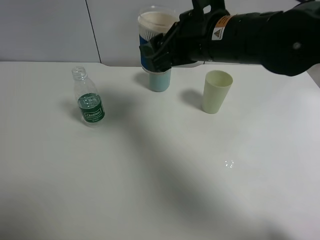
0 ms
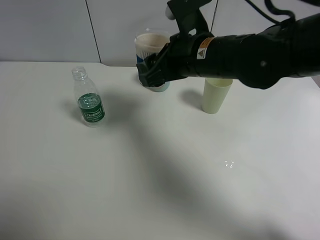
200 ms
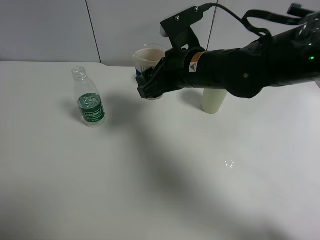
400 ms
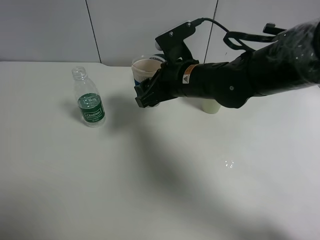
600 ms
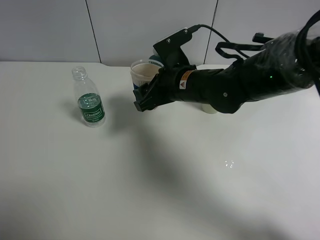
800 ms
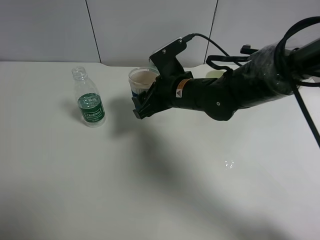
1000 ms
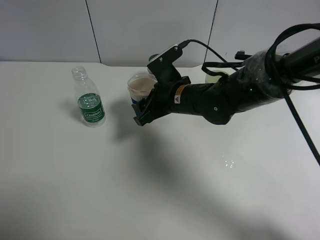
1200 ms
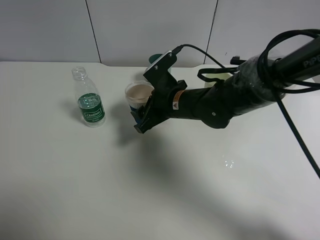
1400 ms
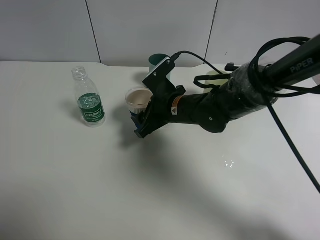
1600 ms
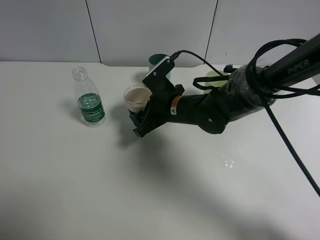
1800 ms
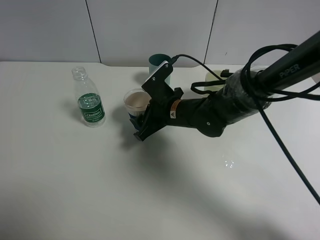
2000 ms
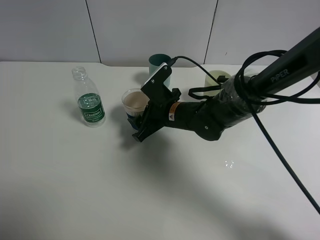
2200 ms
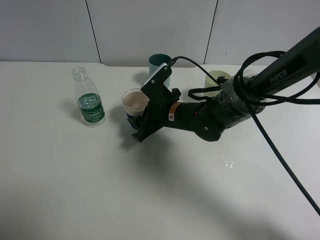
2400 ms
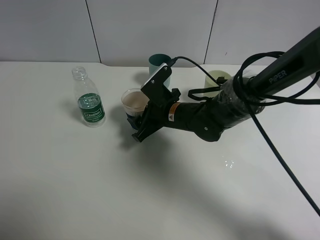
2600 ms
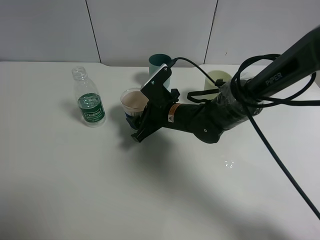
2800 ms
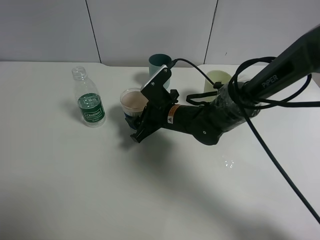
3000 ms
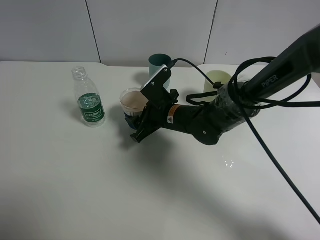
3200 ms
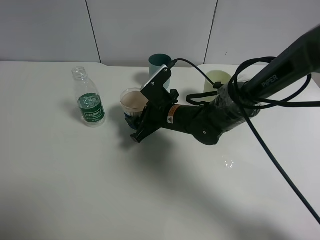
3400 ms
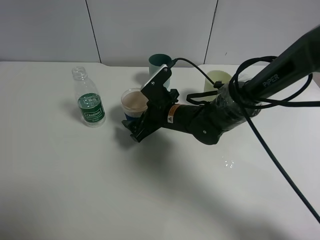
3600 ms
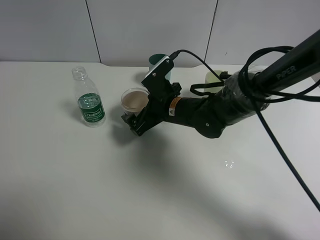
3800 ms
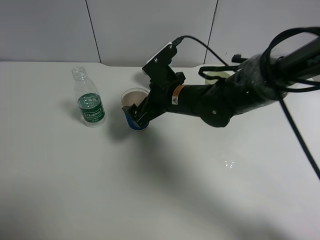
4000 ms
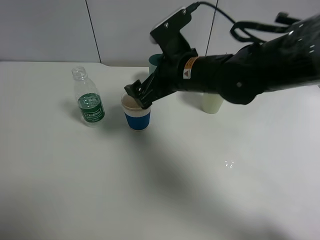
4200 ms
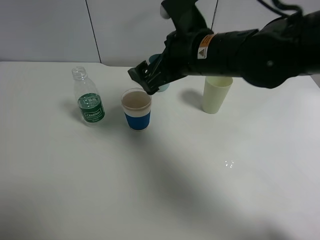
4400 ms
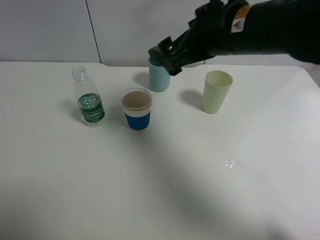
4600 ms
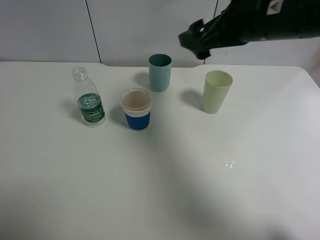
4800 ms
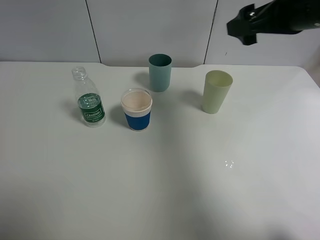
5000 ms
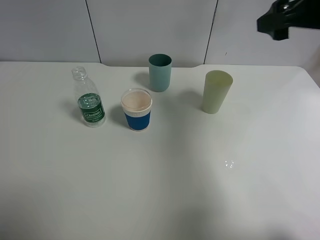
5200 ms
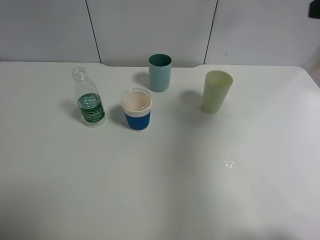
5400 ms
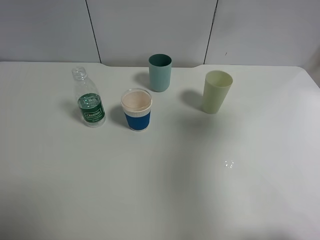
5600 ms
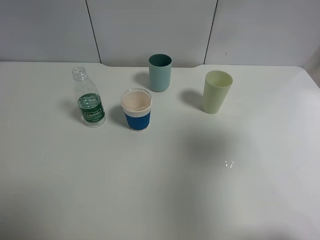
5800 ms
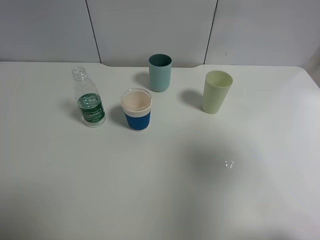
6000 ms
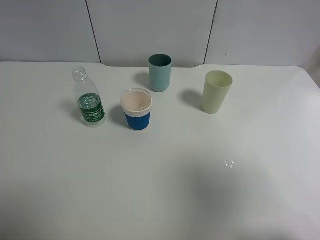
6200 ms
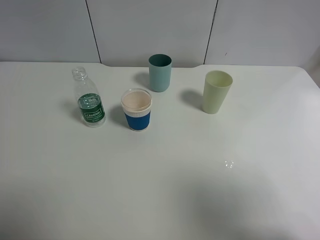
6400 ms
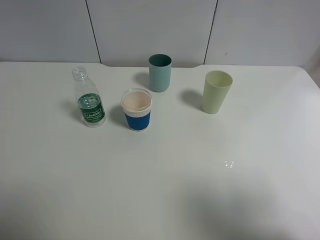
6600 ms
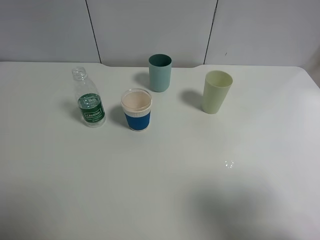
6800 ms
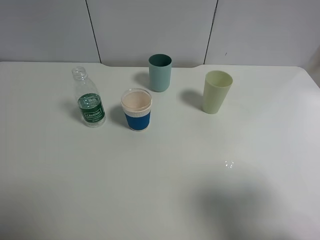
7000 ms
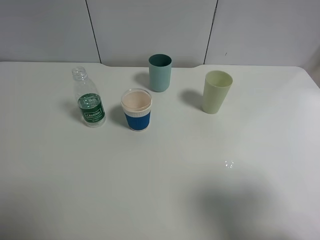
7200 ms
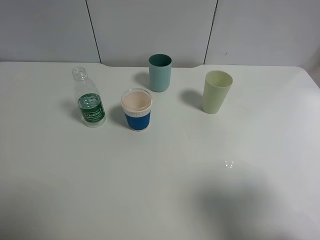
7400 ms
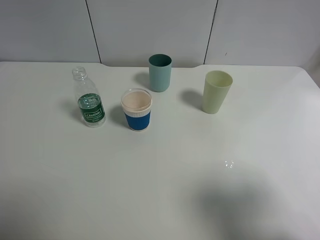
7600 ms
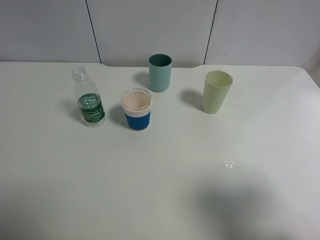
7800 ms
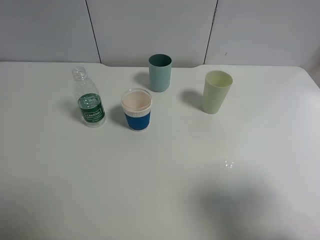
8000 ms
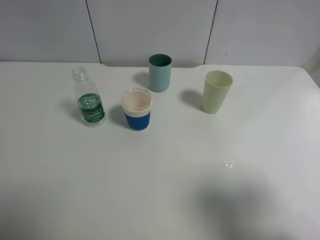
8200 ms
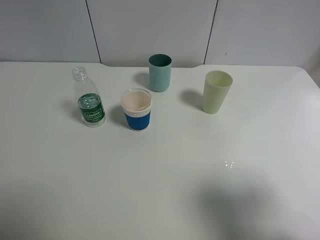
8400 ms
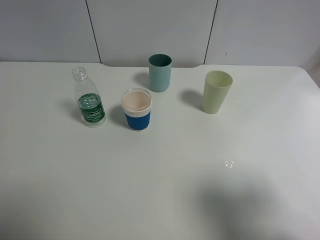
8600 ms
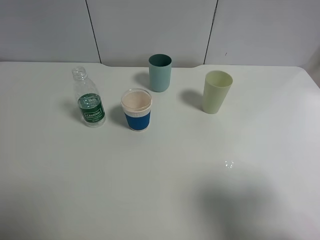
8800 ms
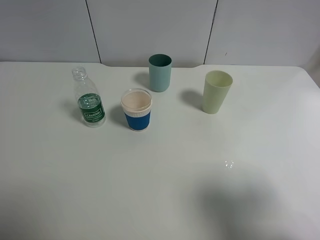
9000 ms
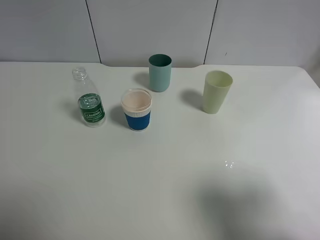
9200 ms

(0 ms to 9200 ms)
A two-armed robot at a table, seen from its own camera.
Task of the whole recording: use a clamp to hold the bottle of the drink, pour the beverage into a random cup, then clamp the cup containing the drink and pour the drink into another random cup.
Step, 0 ms - 3200 ms: Place the paper cup on the table with right gripper.
0 ms - 1600 ms: The right gripper travels downward by about 15 cm.
1600 ms - 3000 ms: The grippers move only a little.
3000 ms - 4600 ms: The right gripper shifts about 20 cm upward, and opens up.
4600 ms - 6200 ms: The right gripper heads backward, to the right and upward, covering some 35 cm.
6200 ms - 7600 ms: The right gripper is displaced downward by roughly 10 cm.
7600 ms - 9200 ms: Neither gripper changes place.

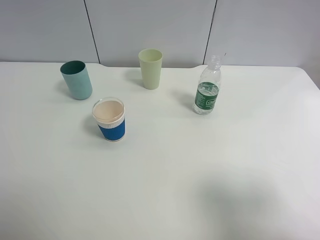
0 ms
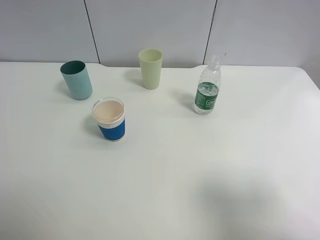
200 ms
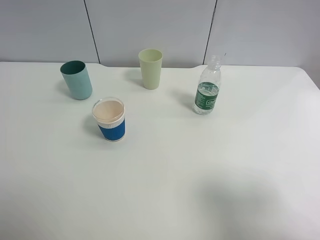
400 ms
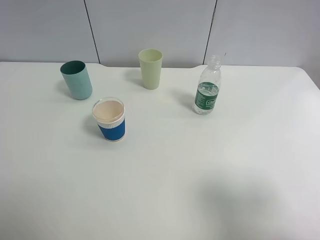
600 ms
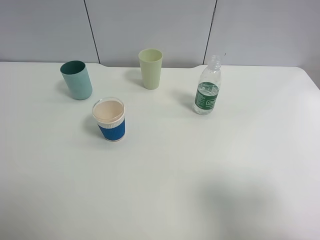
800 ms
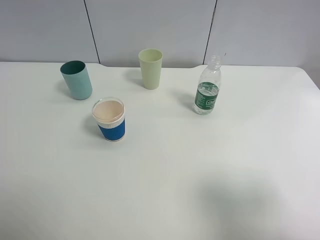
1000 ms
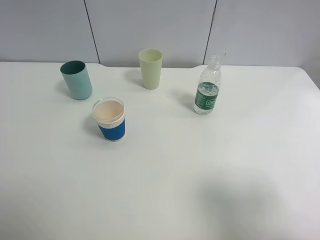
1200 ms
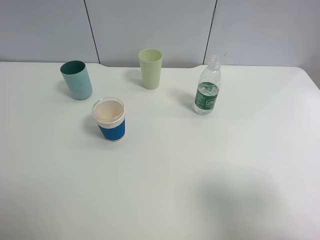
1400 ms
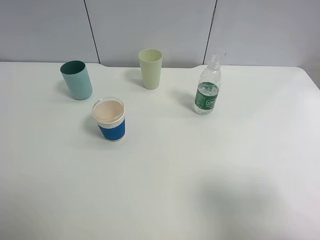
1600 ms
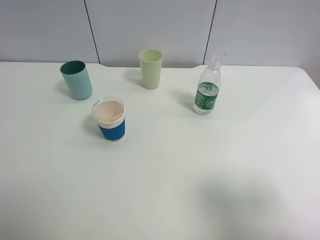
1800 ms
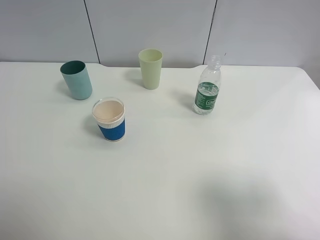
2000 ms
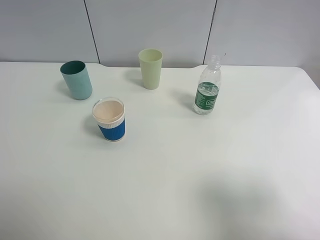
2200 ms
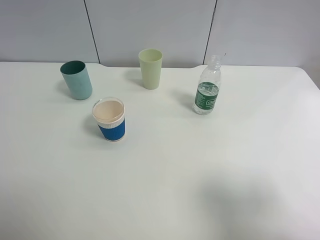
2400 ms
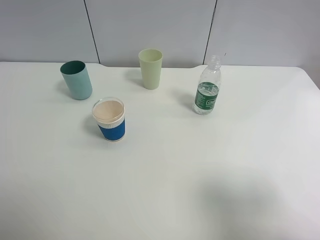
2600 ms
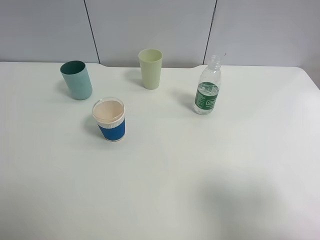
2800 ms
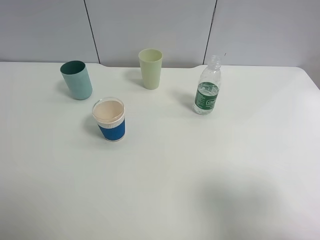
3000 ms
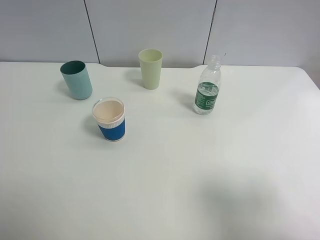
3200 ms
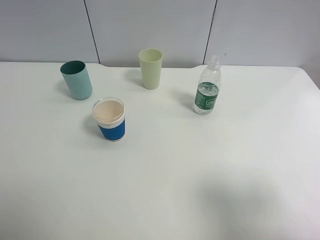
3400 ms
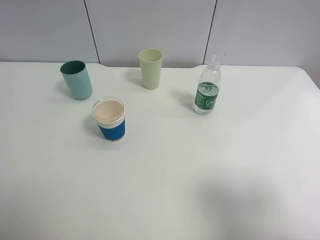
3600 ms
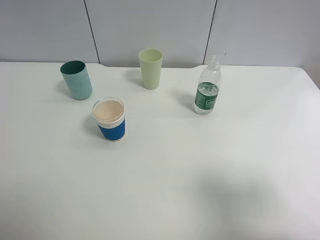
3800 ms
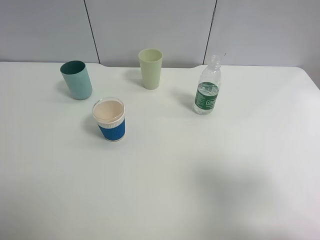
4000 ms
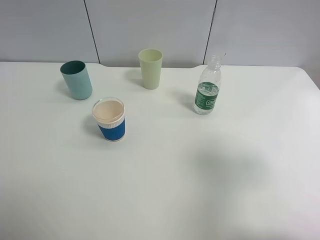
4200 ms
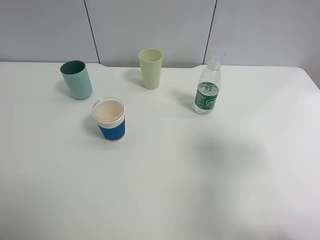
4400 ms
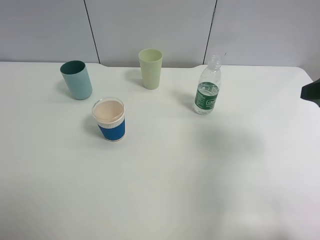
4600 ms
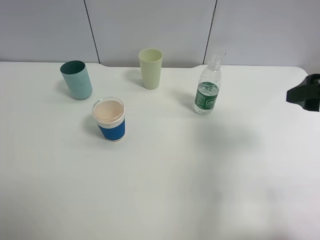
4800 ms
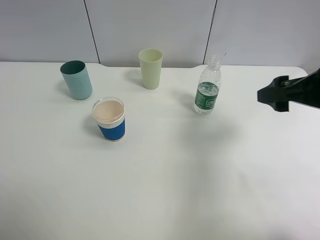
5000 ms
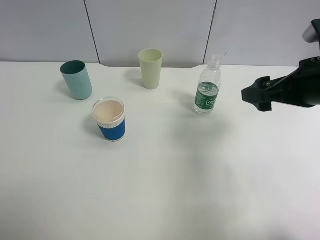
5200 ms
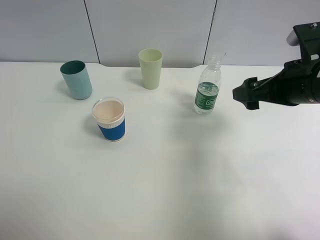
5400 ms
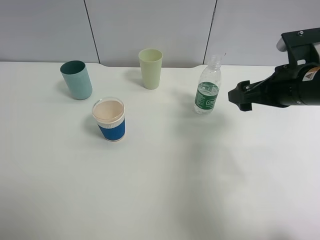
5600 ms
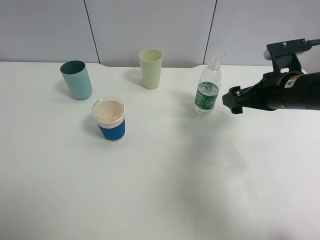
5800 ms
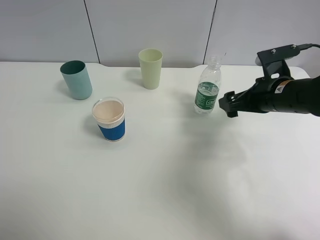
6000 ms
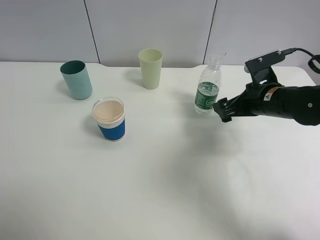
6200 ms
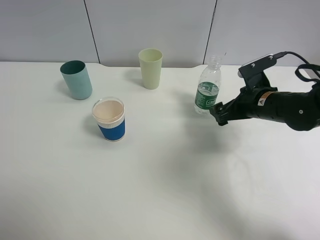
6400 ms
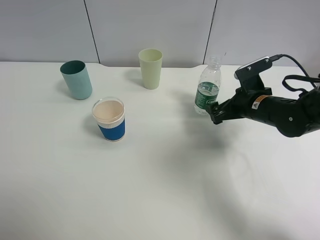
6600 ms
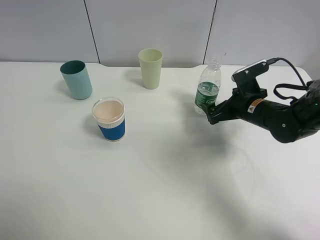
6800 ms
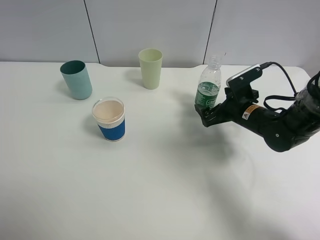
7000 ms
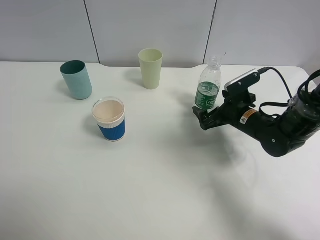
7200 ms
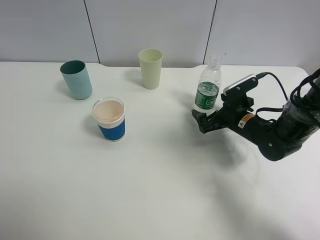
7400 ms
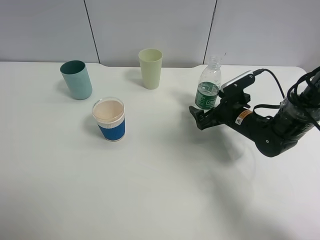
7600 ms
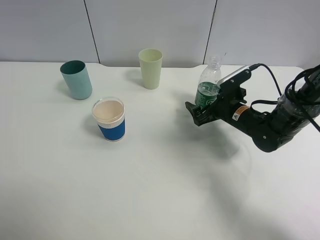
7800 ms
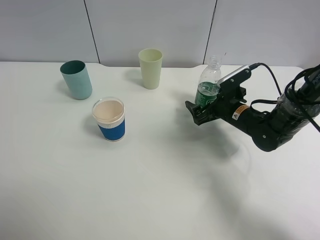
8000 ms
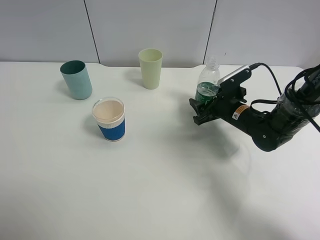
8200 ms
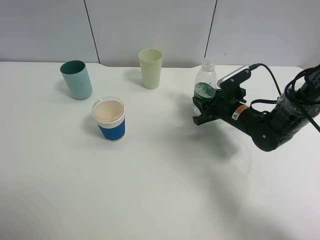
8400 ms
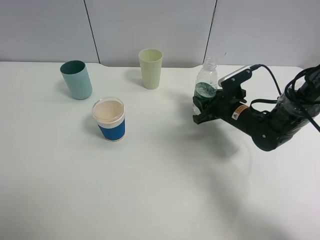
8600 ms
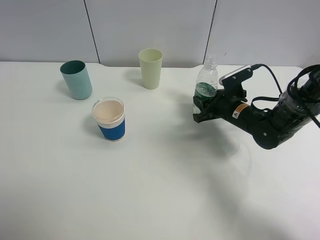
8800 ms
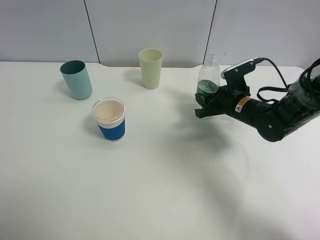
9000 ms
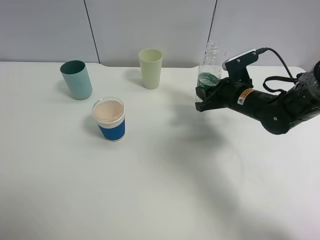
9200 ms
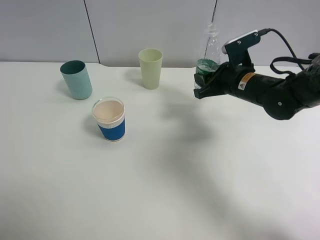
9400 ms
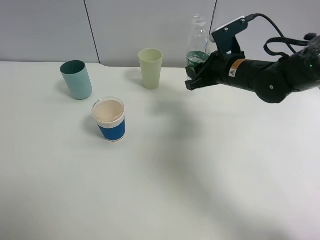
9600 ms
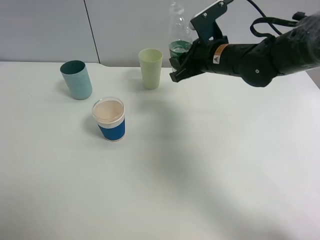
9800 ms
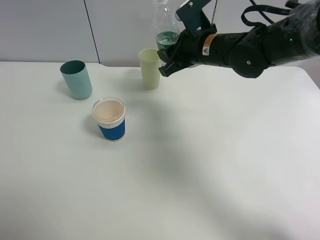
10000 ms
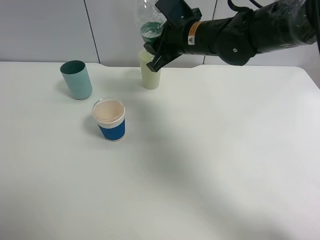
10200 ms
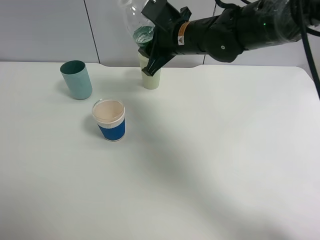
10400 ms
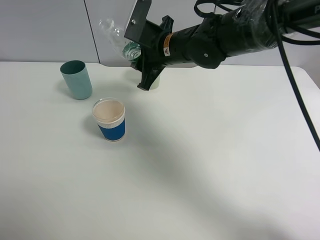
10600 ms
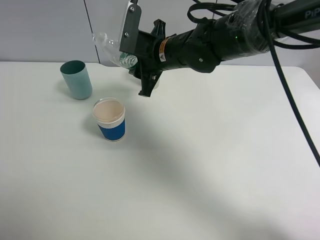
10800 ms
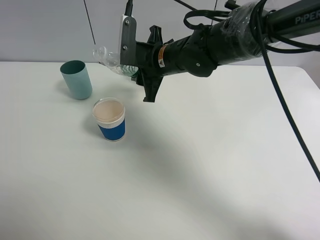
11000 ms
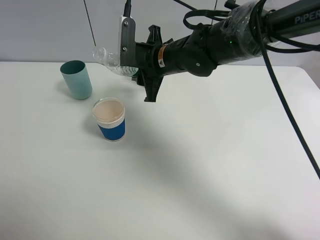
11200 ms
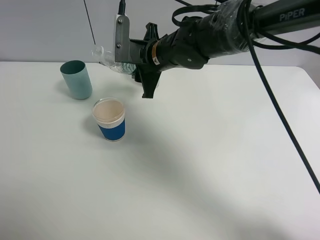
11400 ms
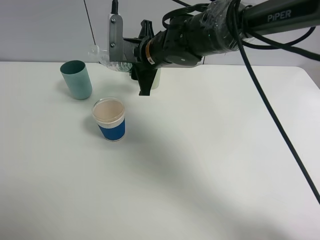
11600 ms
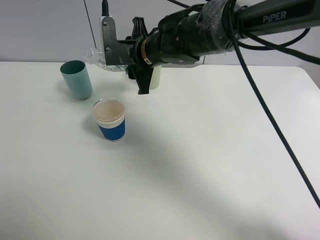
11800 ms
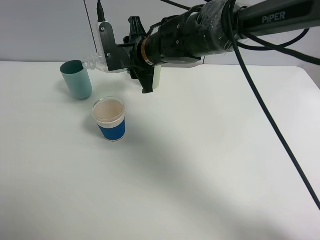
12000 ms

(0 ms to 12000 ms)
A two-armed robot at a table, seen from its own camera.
Task of the whole recording: use a clamp to hold the bottle of the drink, pour the beverage into a random cup, then clamp the cup containing the drink and pour the drink into another random cup.
Step, 0 ms - 9000 ms: Pick up the water bottle with right gripper.
0 ms - 3000 ms: Both grippers stay put.
3000 ms - 4400 ms: The right gripper heads forward, covering roughly 10 cm.
4400 ms - 6000 ms: The right gripper moves forward, downward and to the left, roughly 20 cm.
6000 ms - 7600 ms: The right gripper travels downward by some 10 cm.
7600 ms - 9000 ms: The right gripper closes up.
9000 ms - 10400 ms: The right gripper is displaced to the left and upward by about 20 cm.
10400 ms - 12000 ms: The right gripper goes roughly 5 cm to the left.

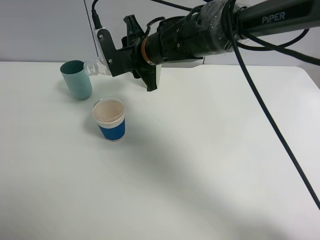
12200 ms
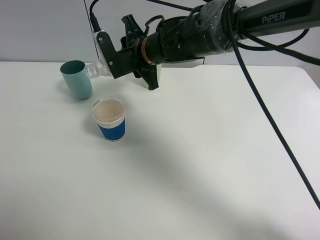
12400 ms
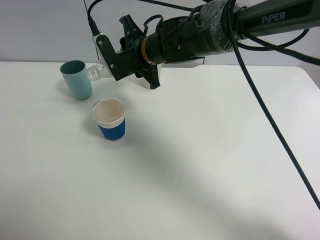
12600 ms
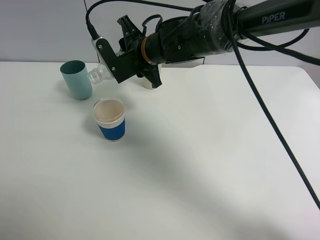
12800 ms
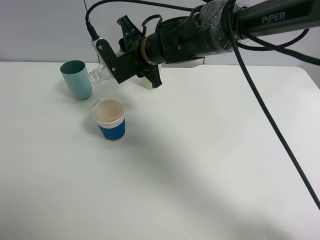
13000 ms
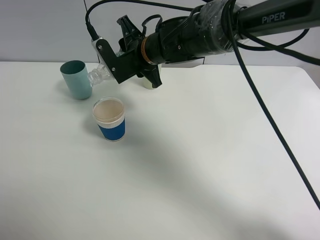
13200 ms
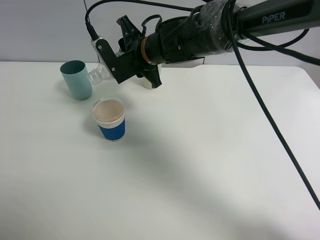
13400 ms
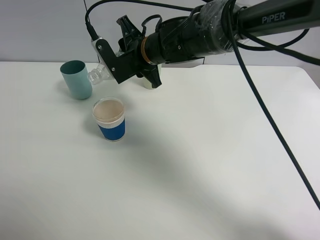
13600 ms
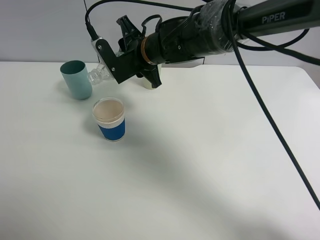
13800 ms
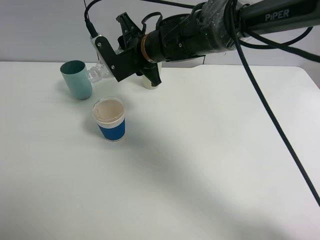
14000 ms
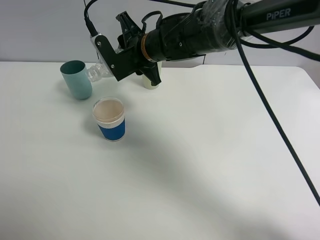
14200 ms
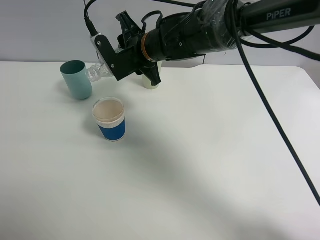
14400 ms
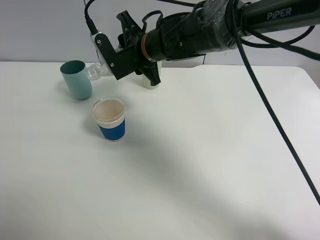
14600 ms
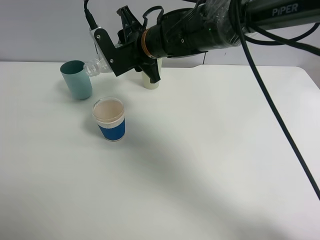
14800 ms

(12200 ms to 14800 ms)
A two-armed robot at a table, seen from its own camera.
Task of the whole recording: use a clamp to hold the bottle of the drink, pour the beverage into a random cup, then clamp the cup containing the drink and pour the drink into another random cup.
12200 ms - 14800 ms: There are only small adjustments of the grippers.
